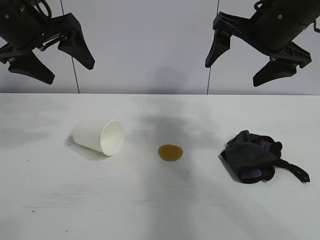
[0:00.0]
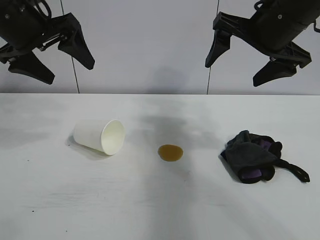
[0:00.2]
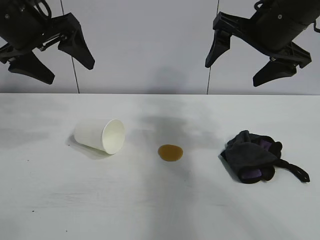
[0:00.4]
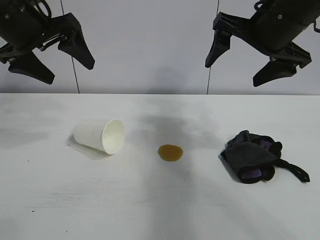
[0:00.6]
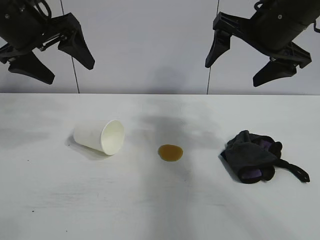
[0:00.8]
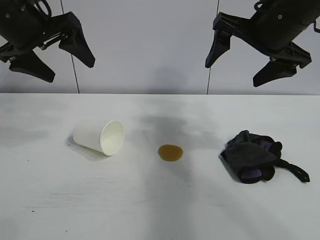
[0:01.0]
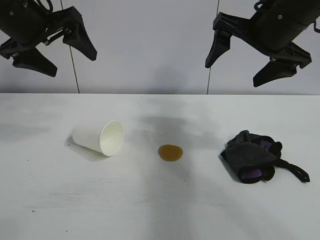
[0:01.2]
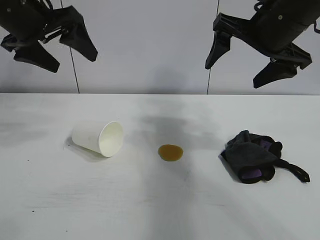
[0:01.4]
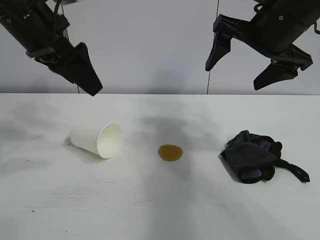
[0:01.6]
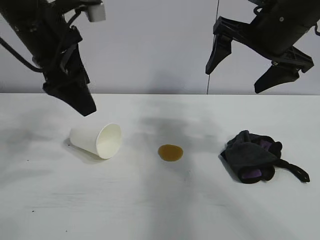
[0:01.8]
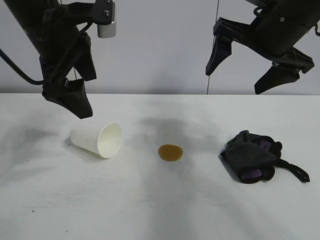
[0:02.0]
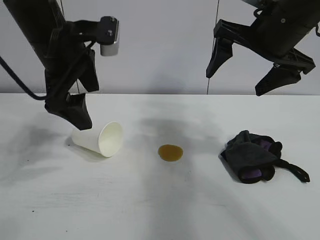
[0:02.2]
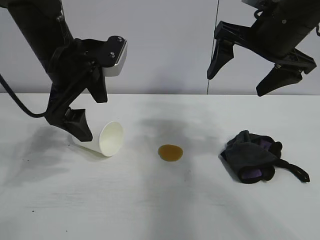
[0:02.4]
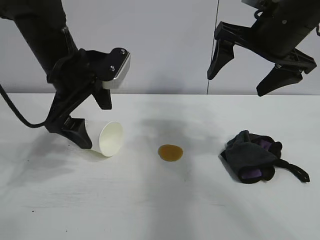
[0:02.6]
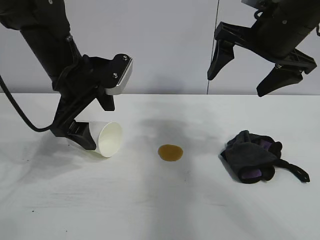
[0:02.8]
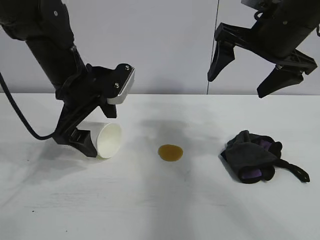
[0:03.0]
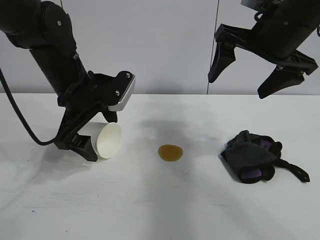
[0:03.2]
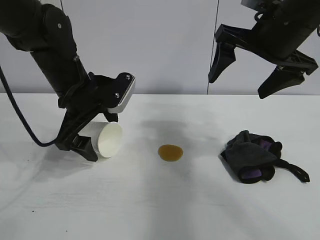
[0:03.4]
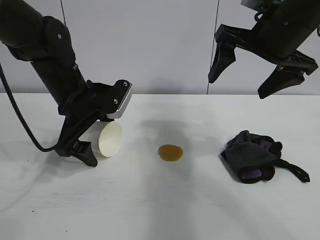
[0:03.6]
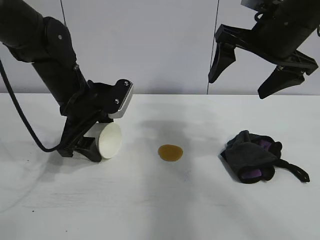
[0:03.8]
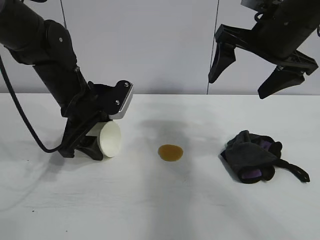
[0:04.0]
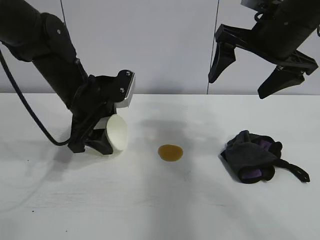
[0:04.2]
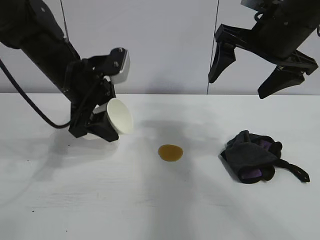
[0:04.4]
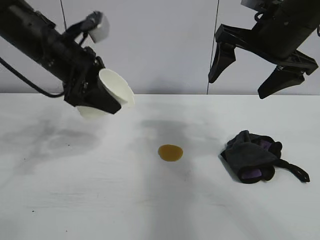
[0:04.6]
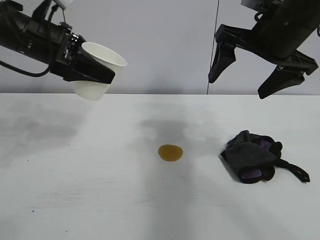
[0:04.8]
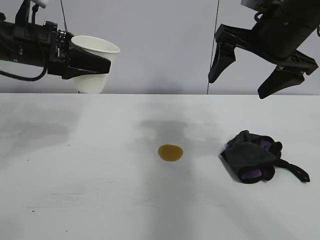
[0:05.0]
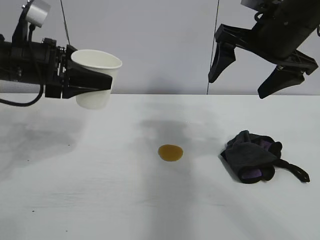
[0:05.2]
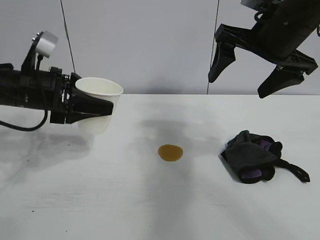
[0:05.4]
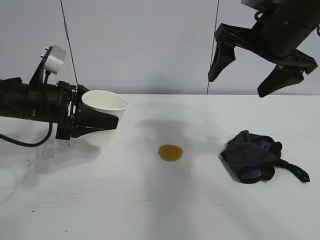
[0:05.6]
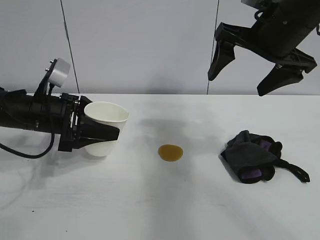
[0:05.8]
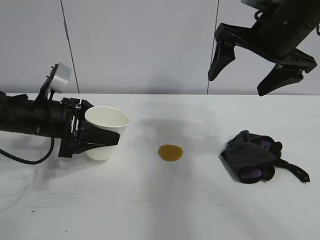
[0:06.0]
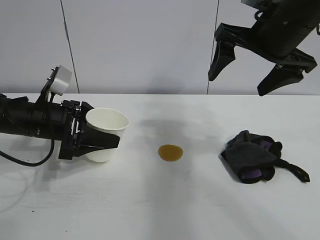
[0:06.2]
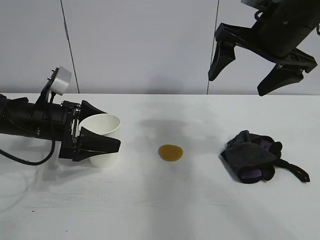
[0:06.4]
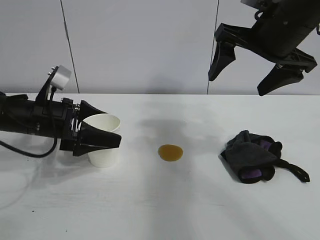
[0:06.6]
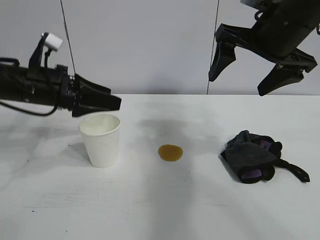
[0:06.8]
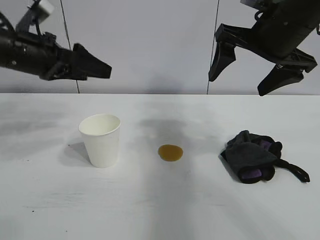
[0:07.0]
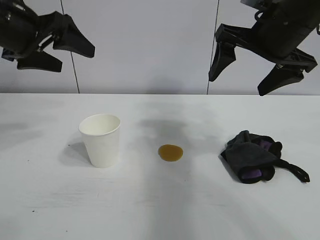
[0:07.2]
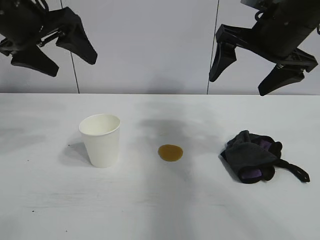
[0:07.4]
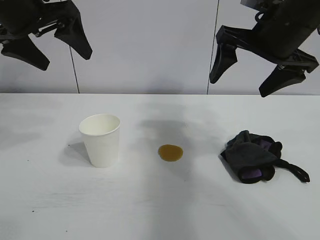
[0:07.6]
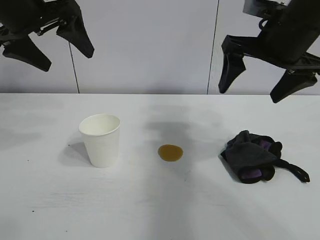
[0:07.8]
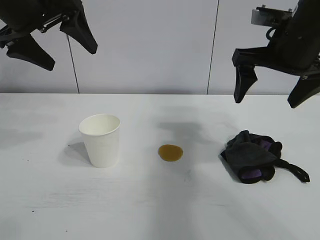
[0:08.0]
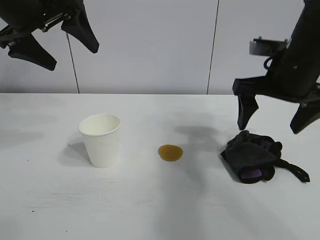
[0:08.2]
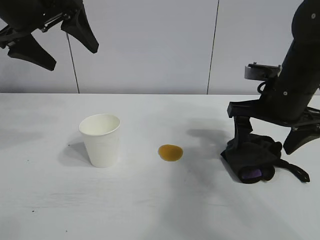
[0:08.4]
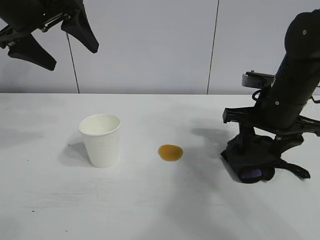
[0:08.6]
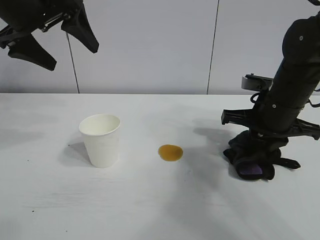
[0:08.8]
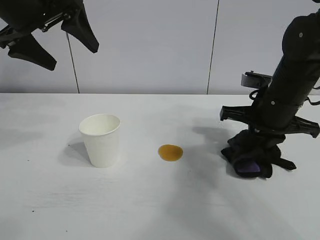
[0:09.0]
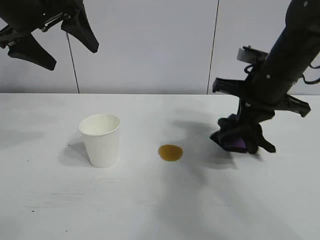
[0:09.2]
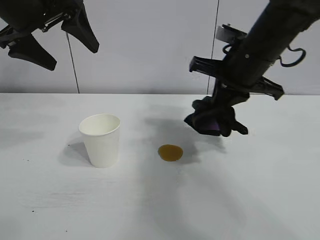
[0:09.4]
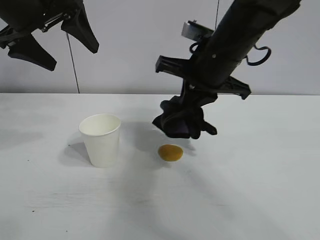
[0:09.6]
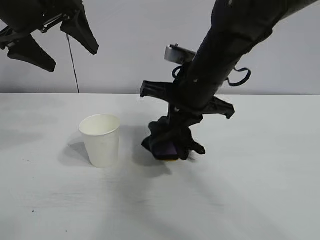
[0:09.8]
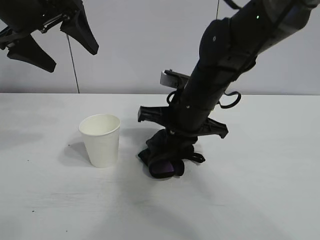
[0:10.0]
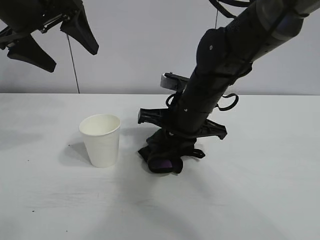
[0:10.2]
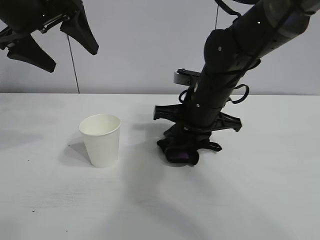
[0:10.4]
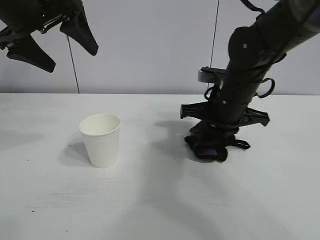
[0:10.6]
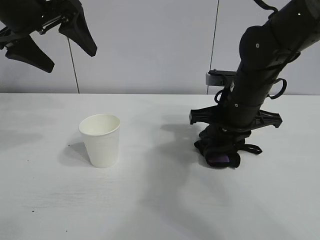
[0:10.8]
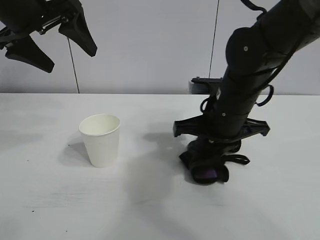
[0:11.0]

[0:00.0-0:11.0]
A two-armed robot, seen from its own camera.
Task of the whole recording: the left gripper pick up the fallen cup and place it upright, the right gripper grasp the black rag and wipe the stain on the table, the right gripper put the black rag back in its original position.
Step, 0:01.0 to 0:03.8: Grasp the paper cup with left gripper.
Step, 0:04.0 to 0:06.4: Stand the paper cup upright with left gripper.
Step, 0:06.6 to 0:08.6: Grasp the rag with right gripper.
